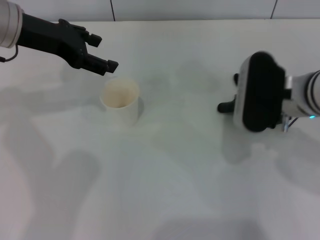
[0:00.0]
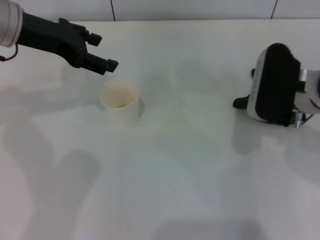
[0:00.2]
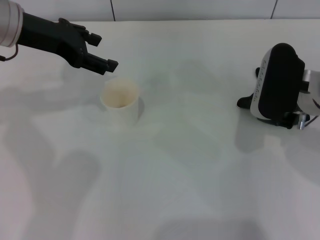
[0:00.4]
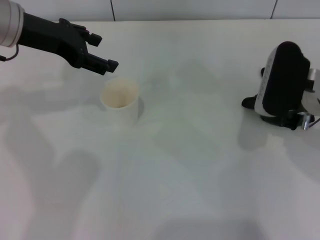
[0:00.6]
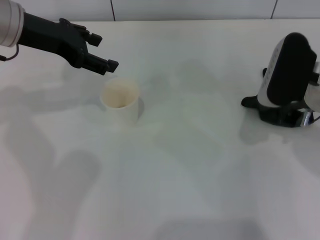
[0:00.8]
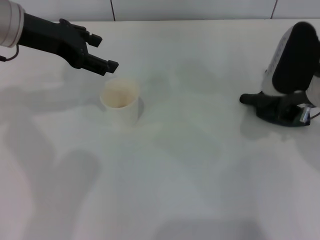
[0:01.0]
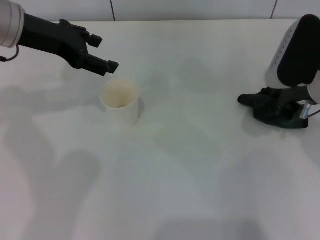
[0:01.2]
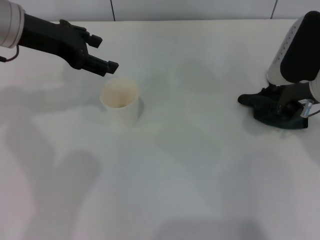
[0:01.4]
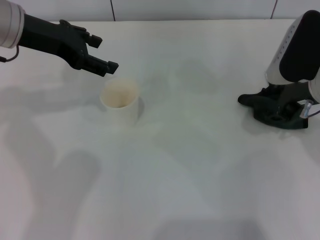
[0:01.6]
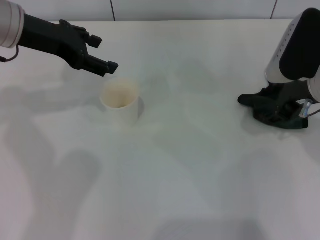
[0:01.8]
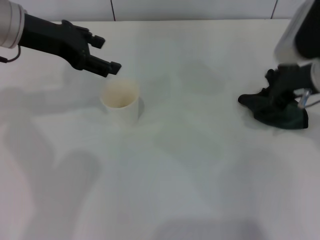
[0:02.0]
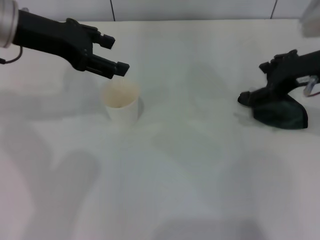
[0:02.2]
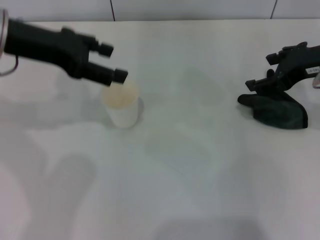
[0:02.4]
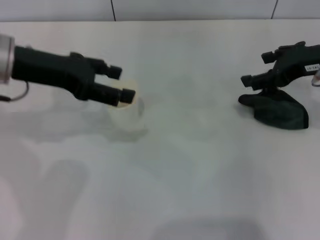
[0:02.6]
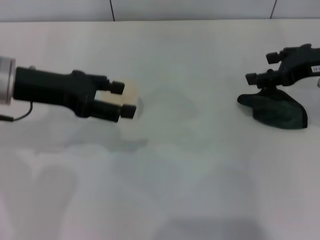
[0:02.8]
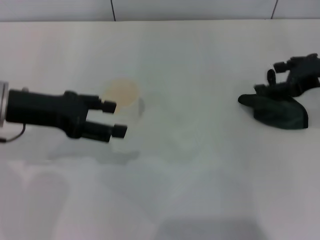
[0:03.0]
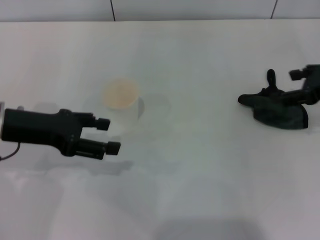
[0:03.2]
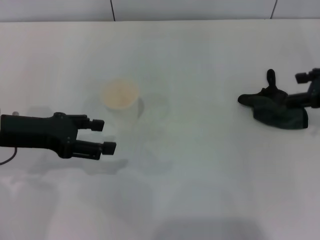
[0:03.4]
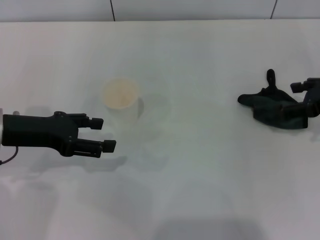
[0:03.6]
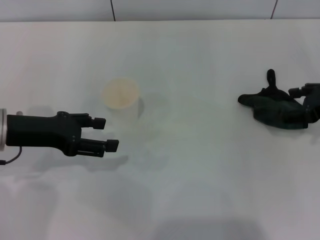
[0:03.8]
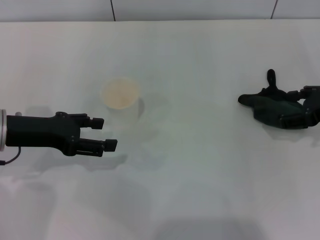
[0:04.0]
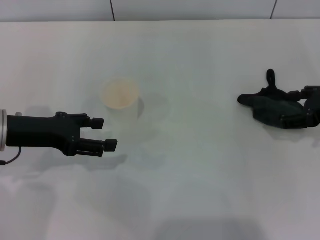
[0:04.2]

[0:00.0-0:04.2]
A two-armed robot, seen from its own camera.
Step, 0:00.0 to 0:02.0: Place the rag on the table with the right gripper.
0:00.0 to 0:01.4: The right gripper shifts by approximately 5 cm.
0:01.4 to 0:02.8: The left gripper shifts about 5 cm backward; the right gripper heads to the right, covering roughly 5 cm, and opens.
0:02.8 to 0:04.2: The left gripper shifts roughly 5 cm downward; the right gripper moves some 5 cm.
